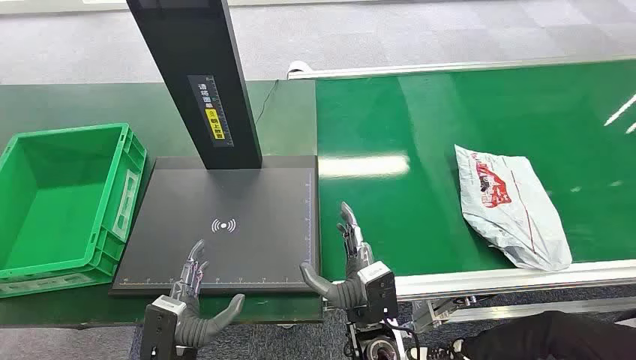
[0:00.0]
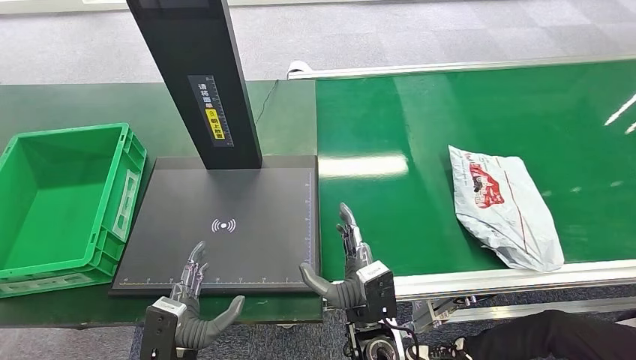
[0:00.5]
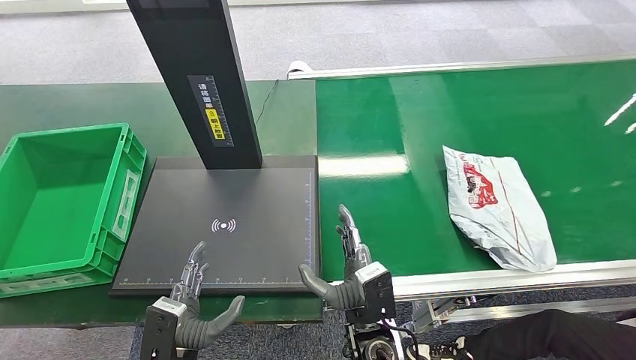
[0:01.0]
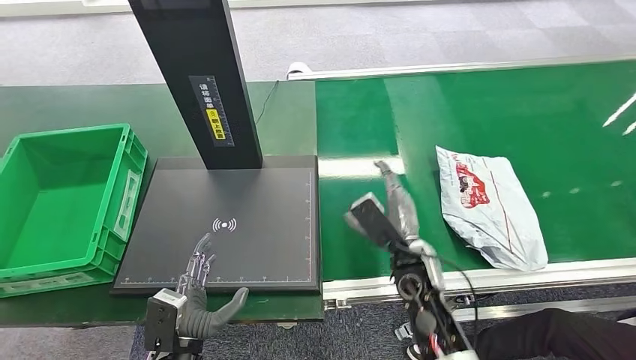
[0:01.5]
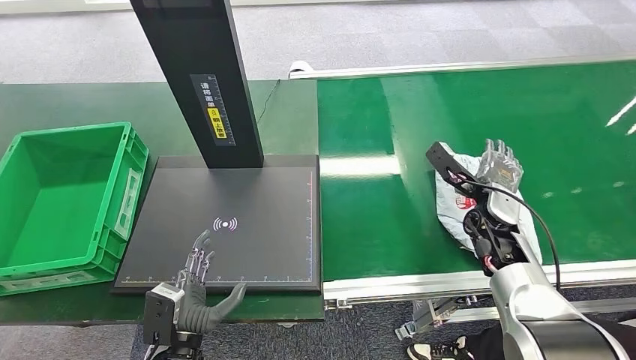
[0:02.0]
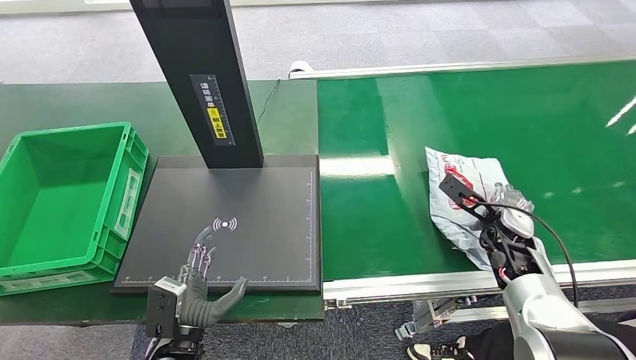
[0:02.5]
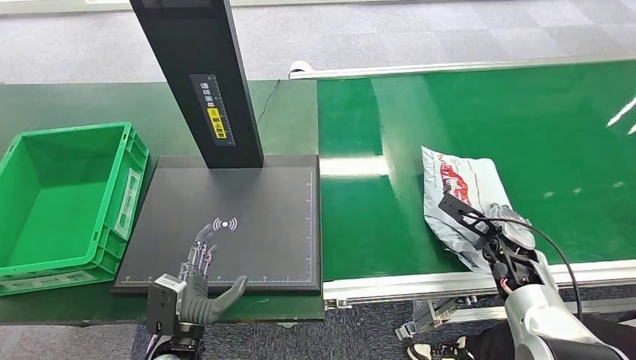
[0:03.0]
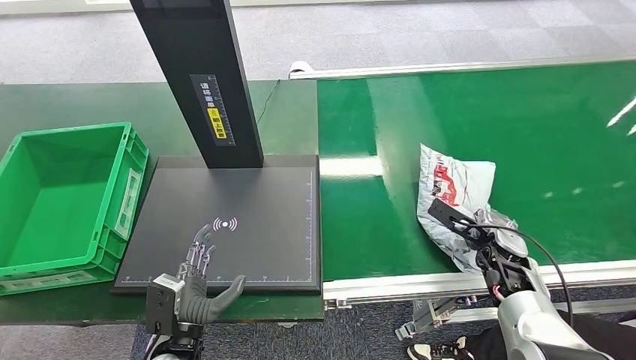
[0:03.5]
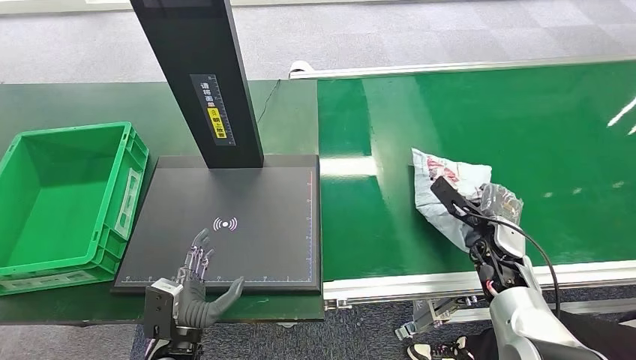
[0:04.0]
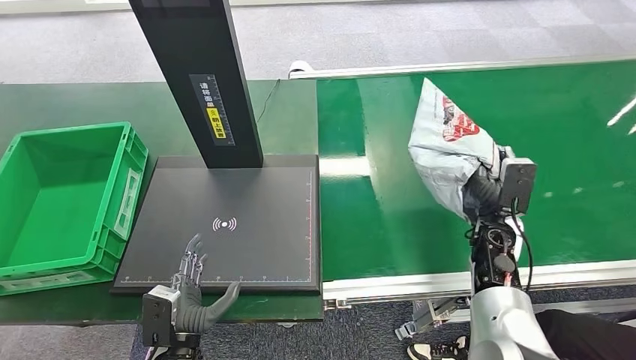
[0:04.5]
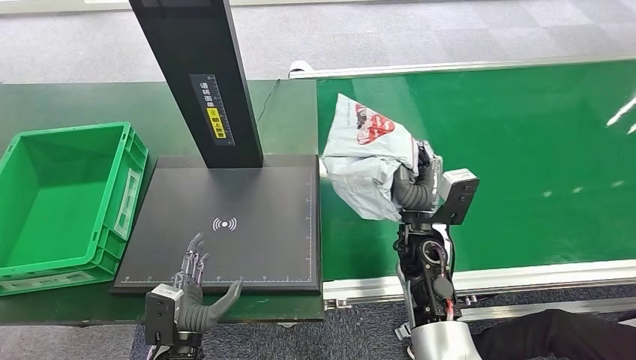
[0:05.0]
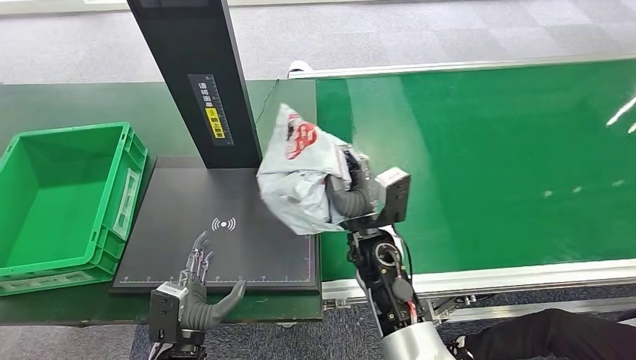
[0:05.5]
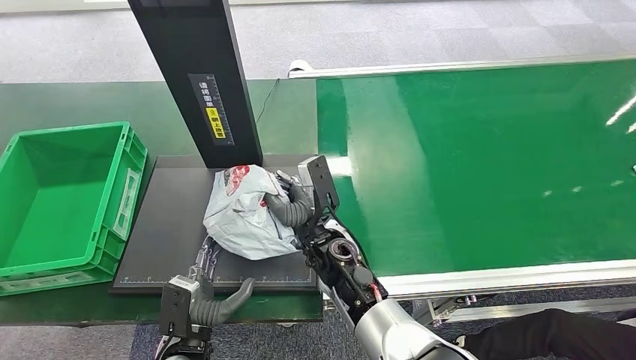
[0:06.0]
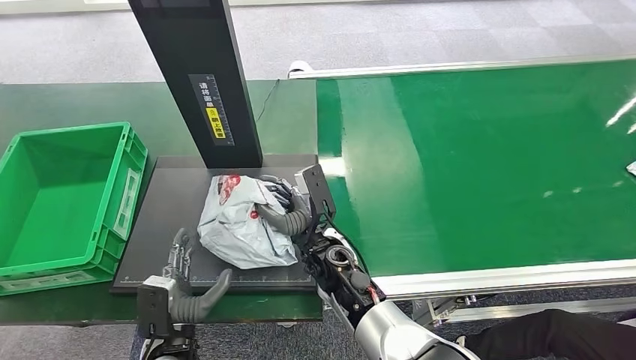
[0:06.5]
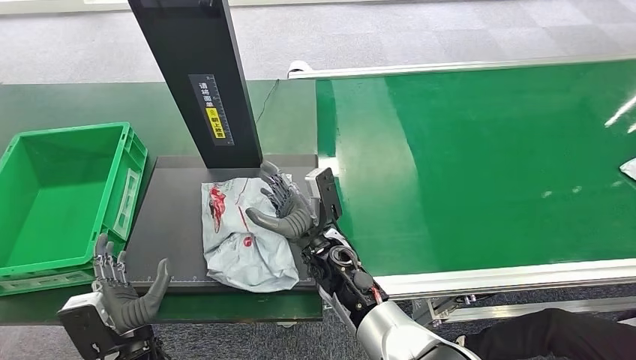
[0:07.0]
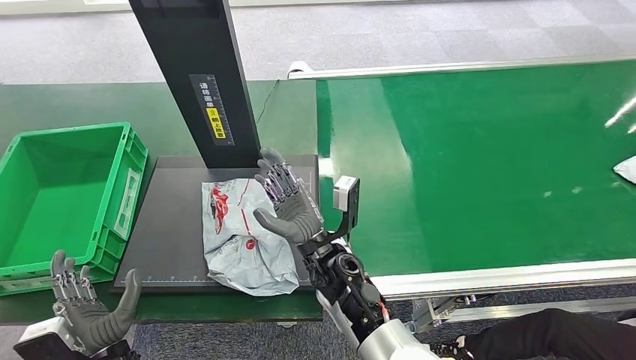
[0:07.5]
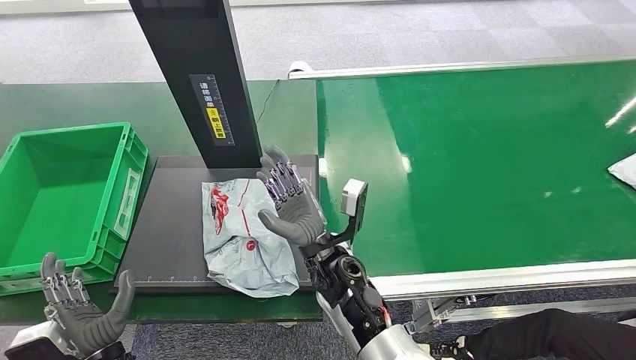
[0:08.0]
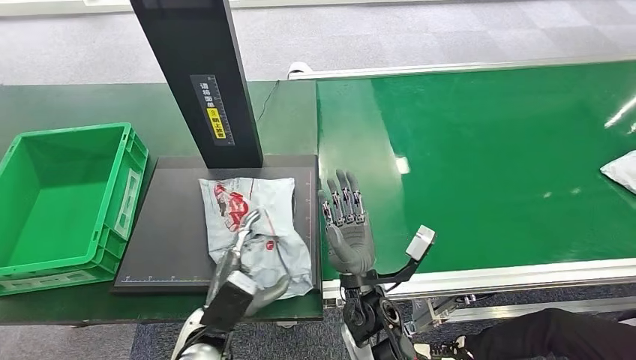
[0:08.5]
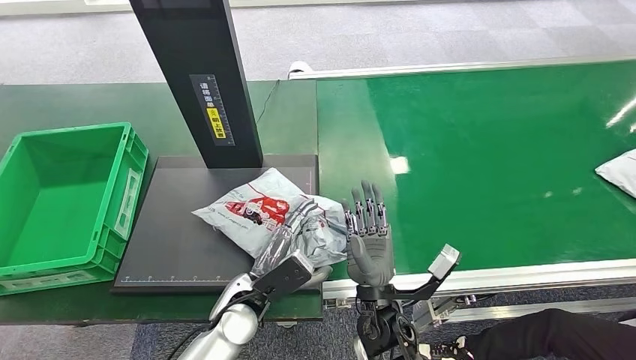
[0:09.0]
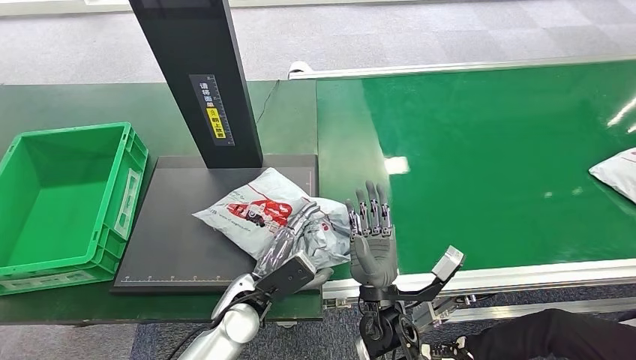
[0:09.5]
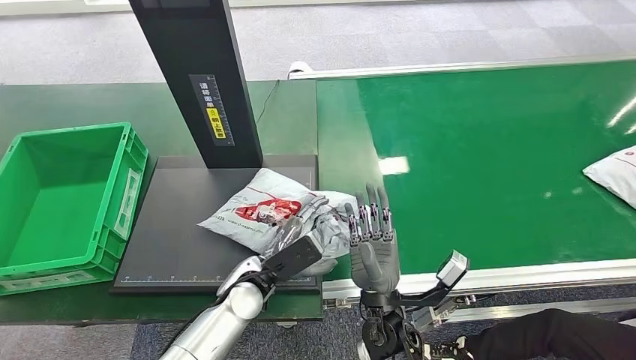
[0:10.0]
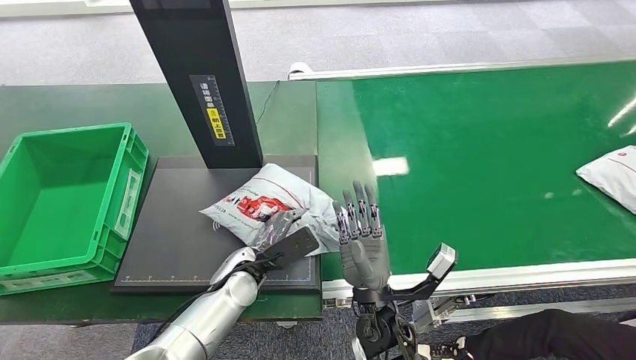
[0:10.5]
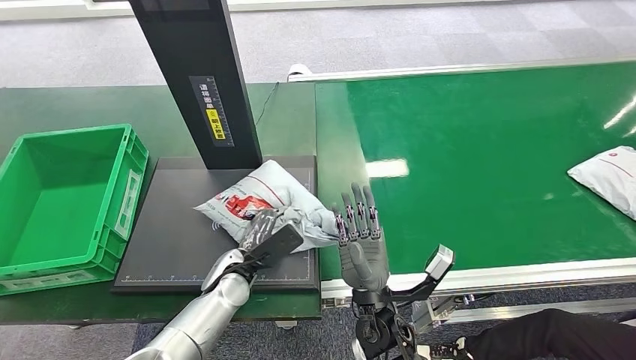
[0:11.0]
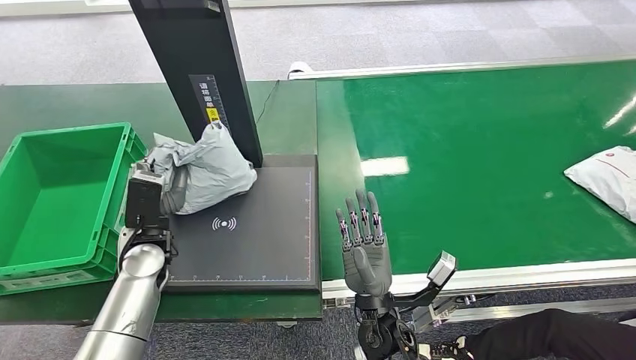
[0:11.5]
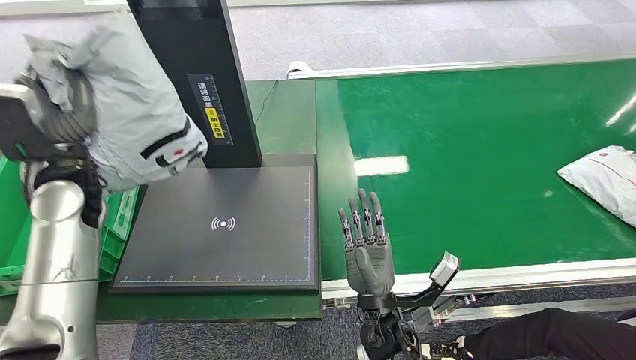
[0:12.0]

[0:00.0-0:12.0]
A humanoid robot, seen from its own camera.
Step, 0:00.0 to 0:04.5: Pick up the package from the conveyor belt.
Step, 0:05.0 to 0:07.5: Place the package onto the inbound machine.
Step, 0:08.0 to 0:11.5: Pick up the package from the inbound machine.
0:02.0 to 0:04.0: The right hand heads downward, covering roughly 5 cm.
0:06.0 to 0:08.0: The left hand travels to the left by approximately 10 cm.
0:08.0 to 0:10.0: The left hand moves to the right and forward, about 20 cm; the right hand moves backward and to the right, approximately 10 cm.

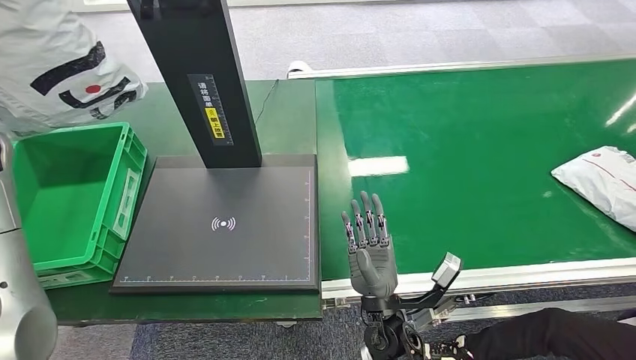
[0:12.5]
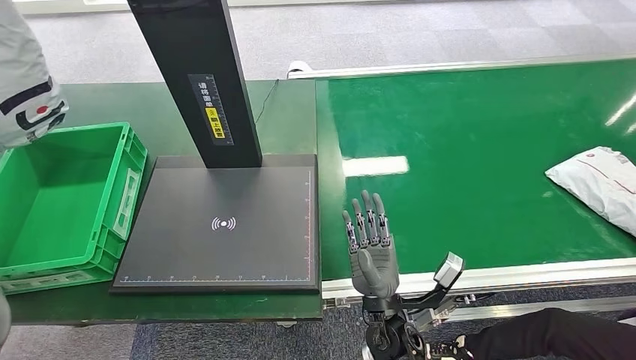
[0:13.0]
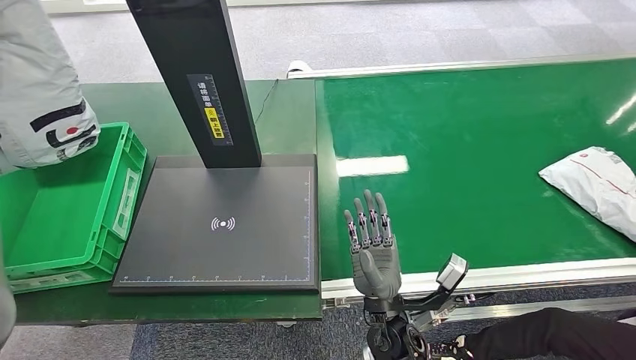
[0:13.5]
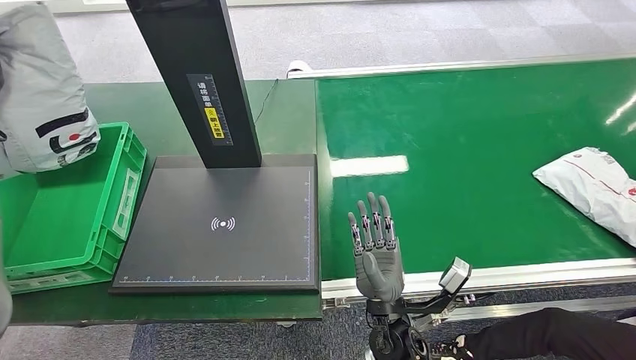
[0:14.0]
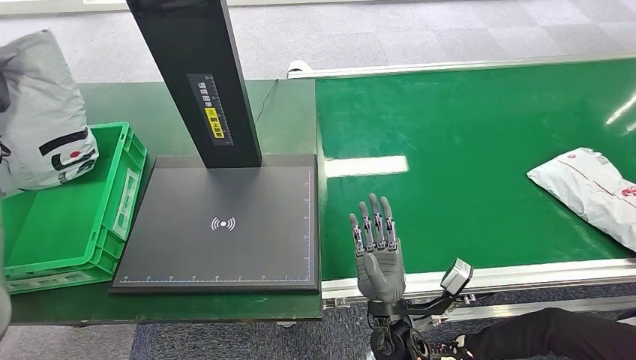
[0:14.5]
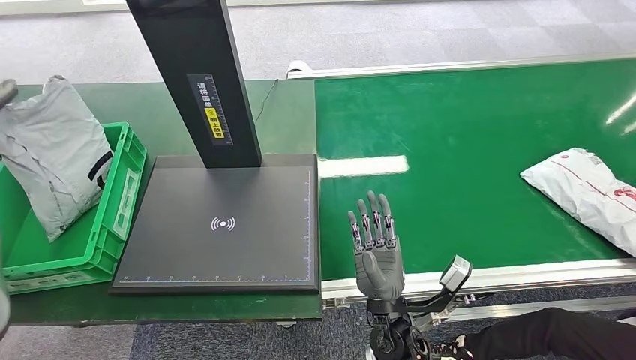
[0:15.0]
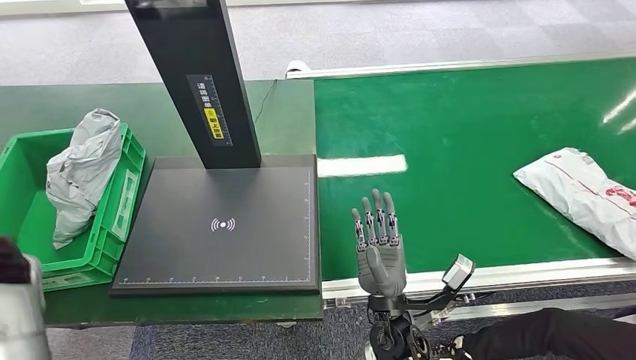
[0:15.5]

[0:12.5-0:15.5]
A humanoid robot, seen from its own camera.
Step, 0:12.5 to 0:15.5: Place the package into the parcel locker.
0:12.5 to 0:14.0: The left hand goes roughly 10 cm to the left and downward.
0:14.0 to 0:15.5: The left hand is displaced downward and backward by some 15 cm.
